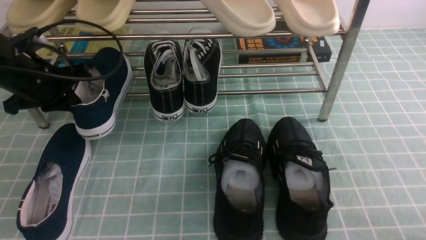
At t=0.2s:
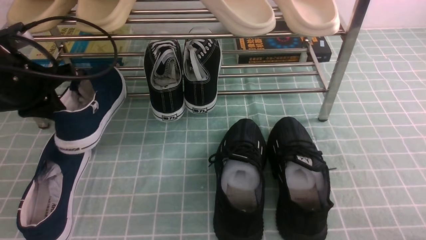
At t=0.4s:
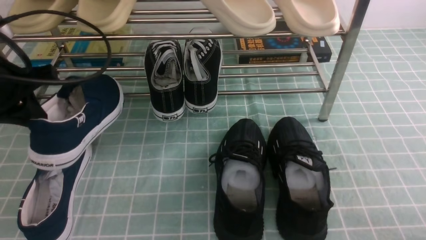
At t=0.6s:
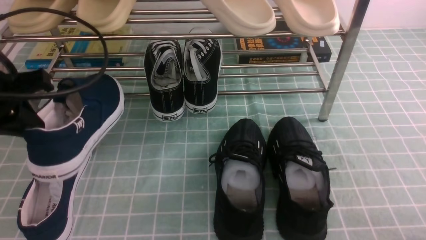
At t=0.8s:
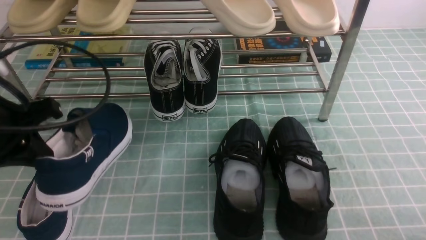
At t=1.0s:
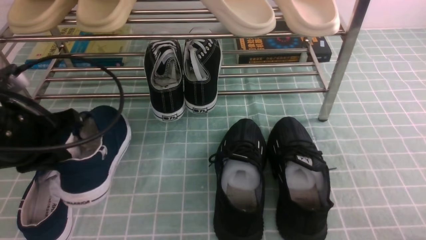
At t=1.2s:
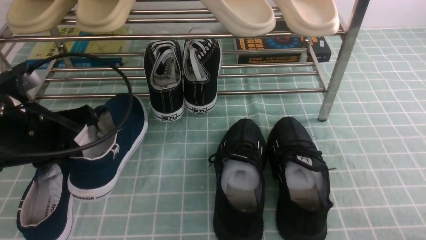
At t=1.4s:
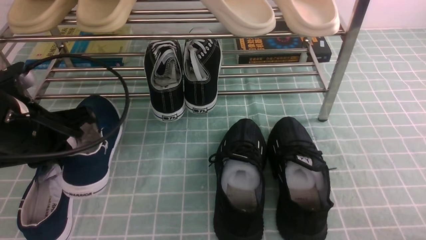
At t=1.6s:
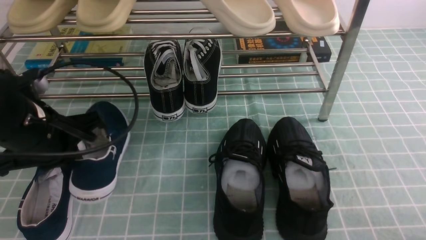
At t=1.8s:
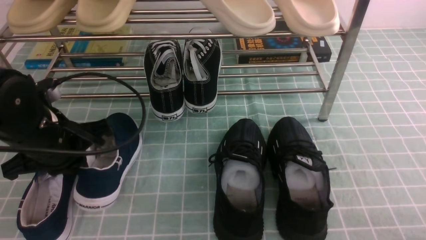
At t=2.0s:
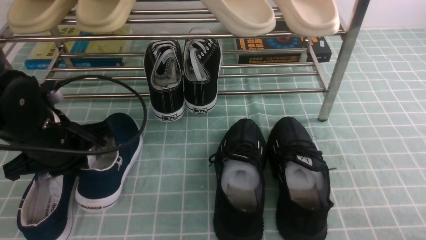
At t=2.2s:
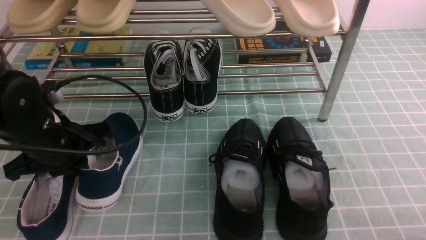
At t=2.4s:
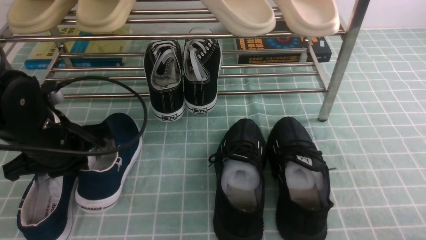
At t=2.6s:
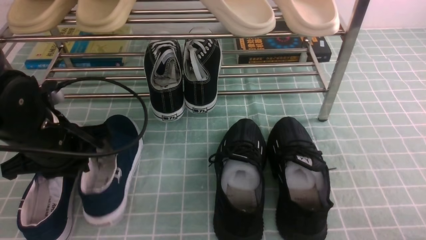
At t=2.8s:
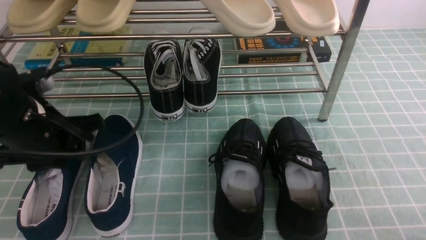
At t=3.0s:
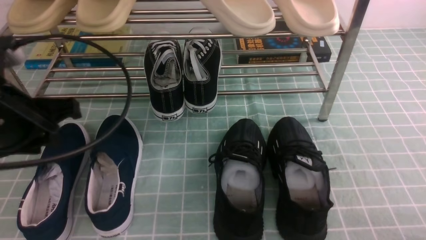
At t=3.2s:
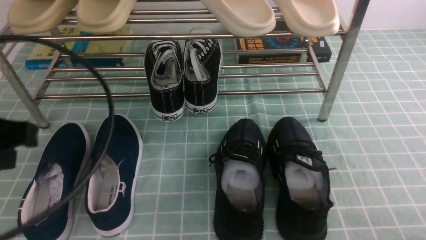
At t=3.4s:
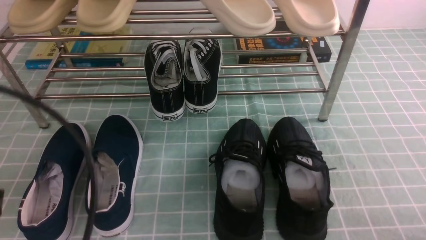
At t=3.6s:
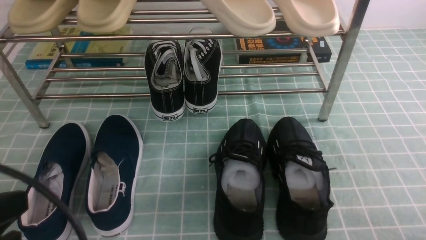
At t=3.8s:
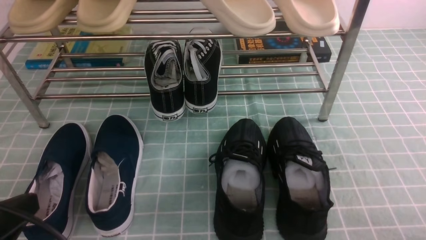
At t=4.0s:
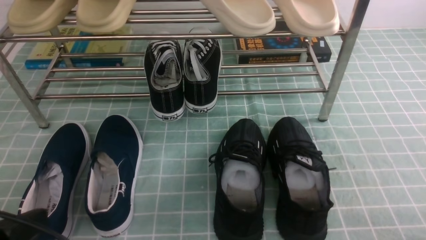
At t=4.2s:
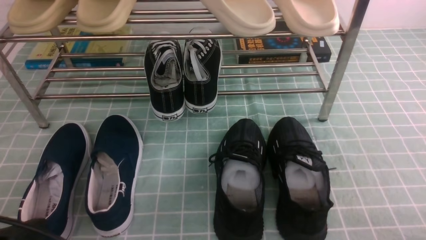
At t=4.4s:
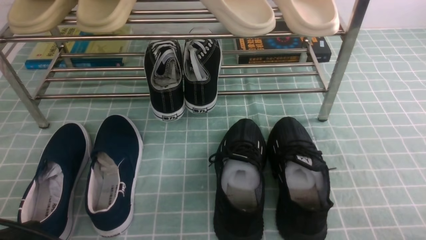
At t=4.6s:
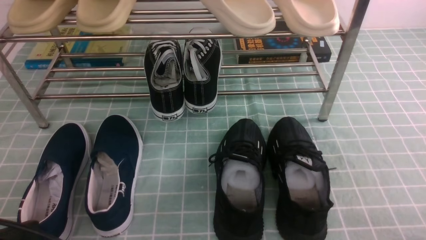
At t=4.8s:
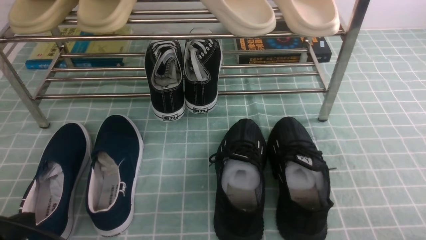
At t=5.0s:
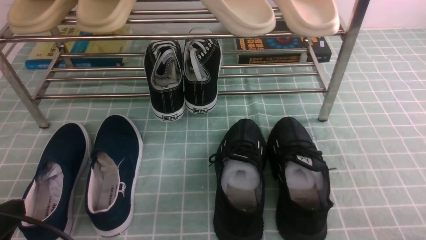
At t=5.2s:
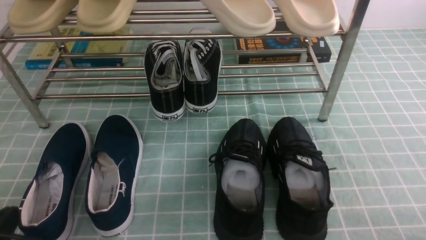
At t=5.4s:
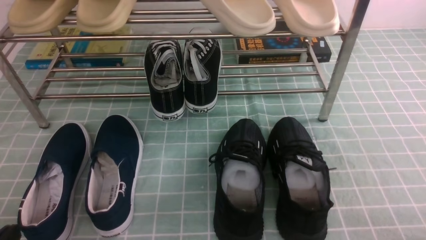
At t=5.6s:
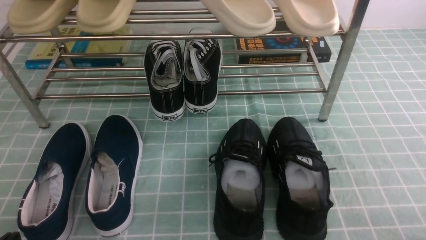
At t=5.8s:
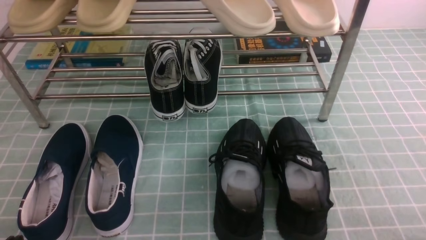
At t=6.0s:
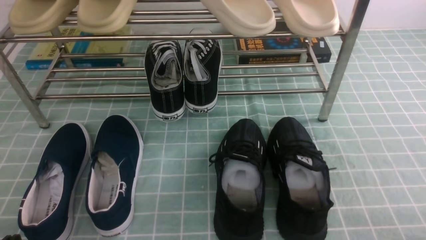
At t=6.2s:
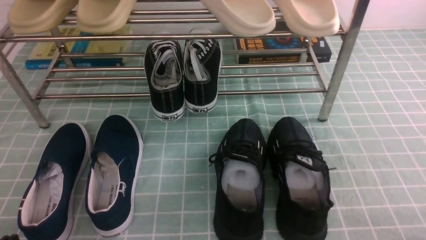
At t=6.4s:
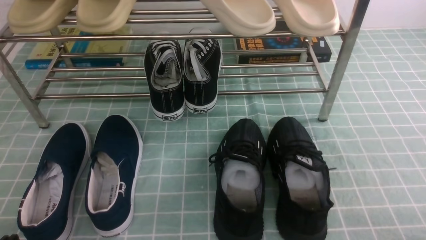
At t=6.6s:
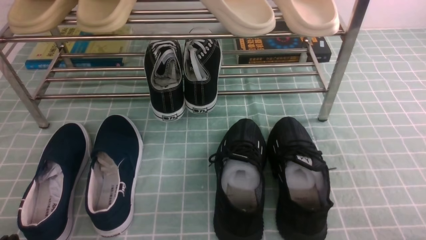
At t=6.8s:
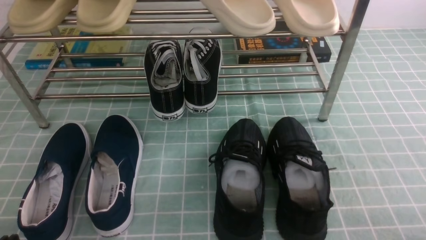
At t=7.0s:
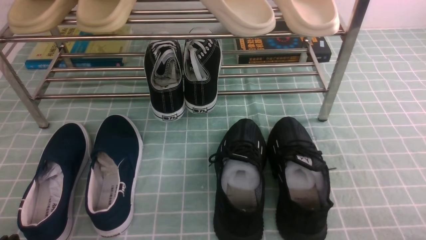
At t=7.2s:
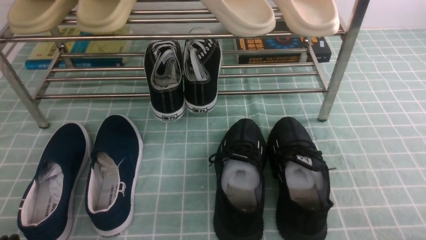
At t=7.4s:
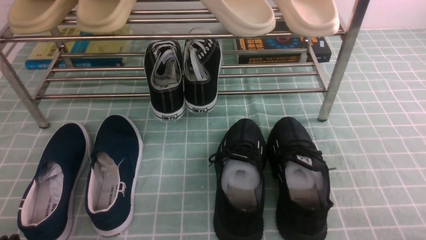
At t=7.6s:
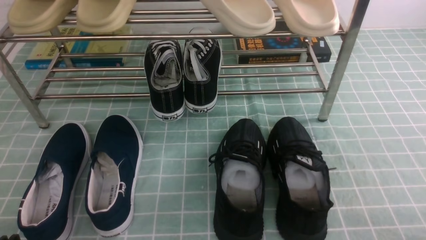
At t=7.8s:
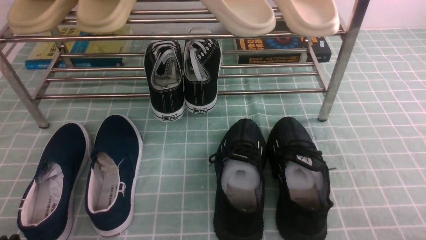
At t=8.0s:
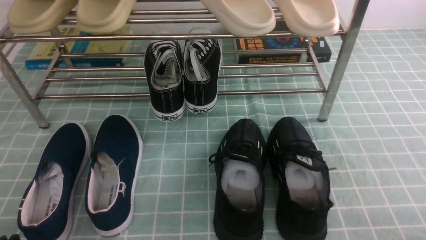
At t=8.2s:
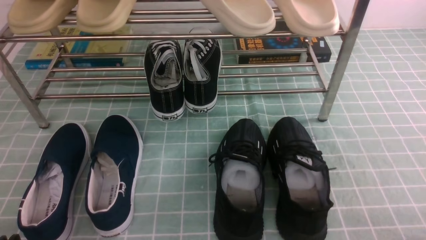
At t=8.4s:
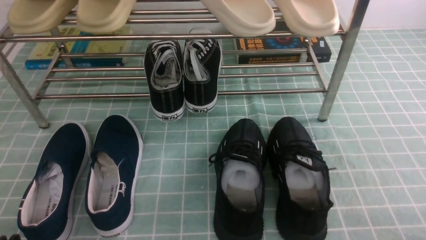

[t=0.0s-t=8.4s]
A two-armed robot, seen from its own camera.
Step, t=0.0s to t=3.0s: Use your left arm to remove the clamped shoe from the shoe rack and put it down.
t=0.0s to t=1.4s: The left gripper is displaced backward and to the right by some 10 cm.
t=1.4s to t=2.8s: The left gripper opens its fingers.
t=2.8s to t=4.2s: The left gripper shifts some 20 cm backward, and closes up.
t=5.6s to t=8.4s: Both grippers stay about where they are.
